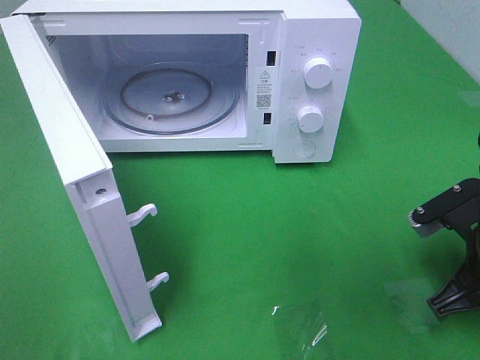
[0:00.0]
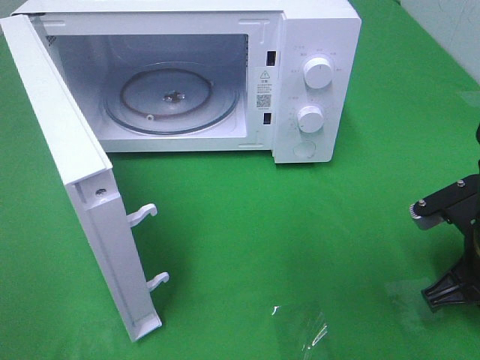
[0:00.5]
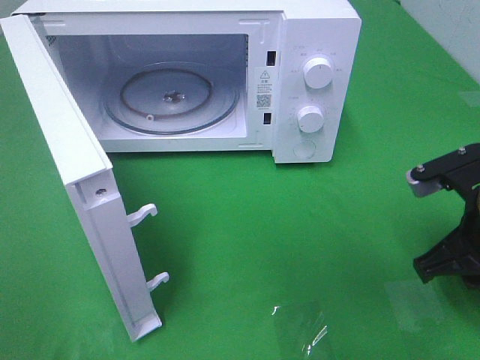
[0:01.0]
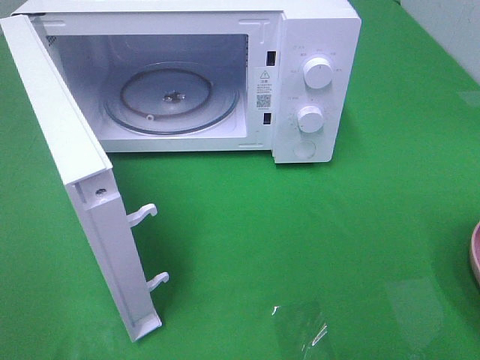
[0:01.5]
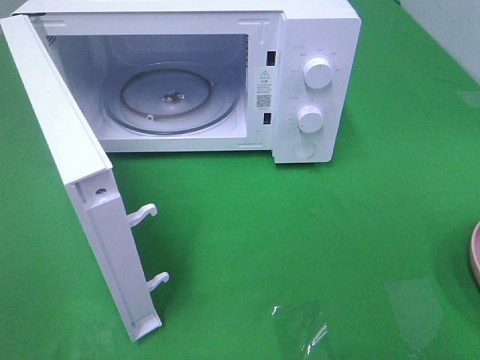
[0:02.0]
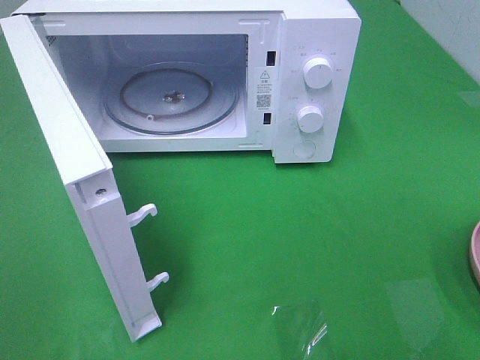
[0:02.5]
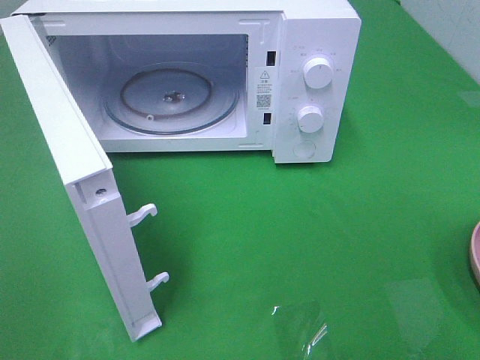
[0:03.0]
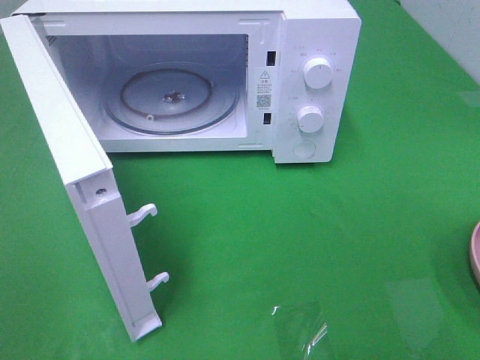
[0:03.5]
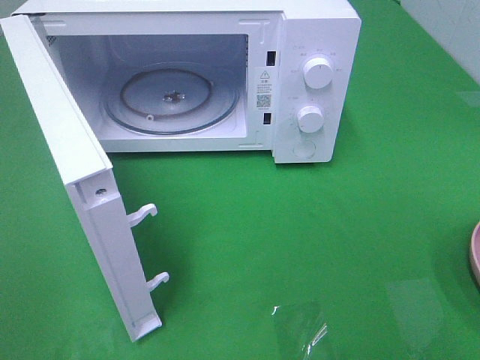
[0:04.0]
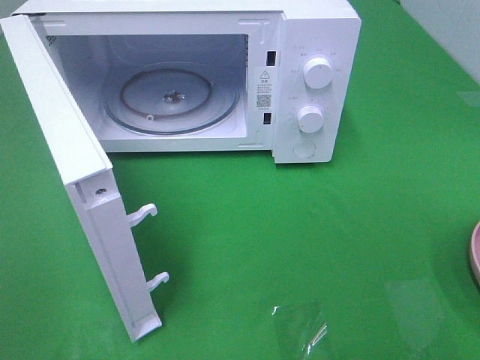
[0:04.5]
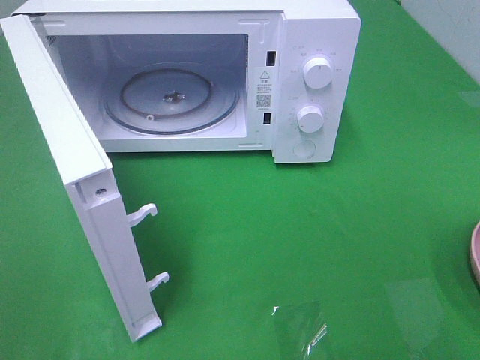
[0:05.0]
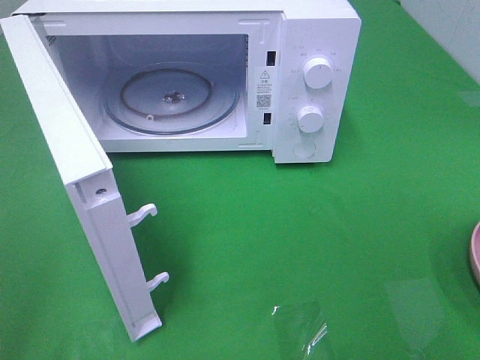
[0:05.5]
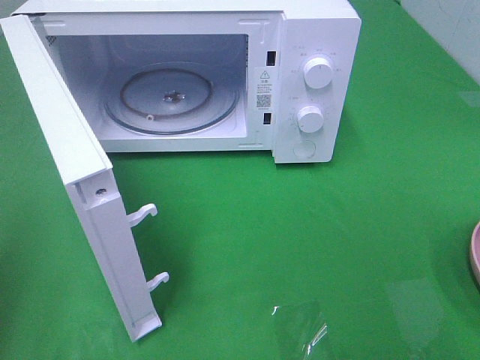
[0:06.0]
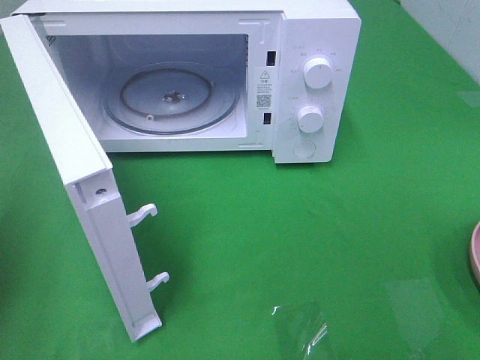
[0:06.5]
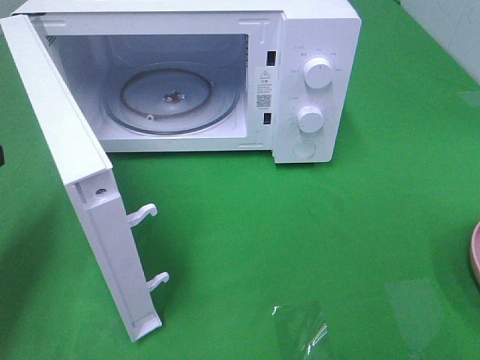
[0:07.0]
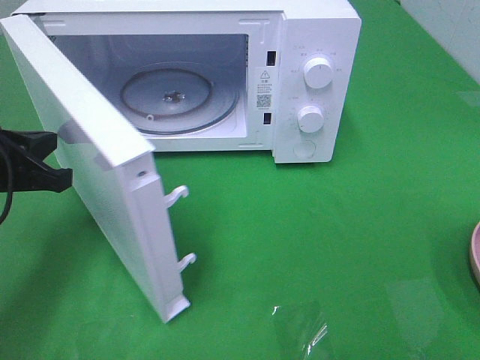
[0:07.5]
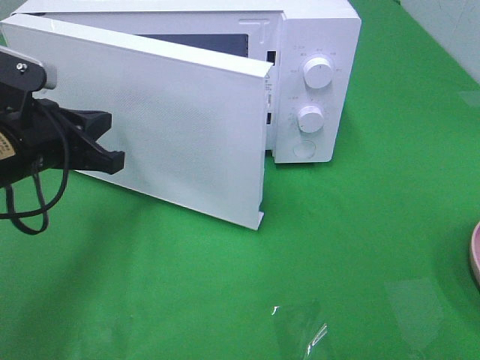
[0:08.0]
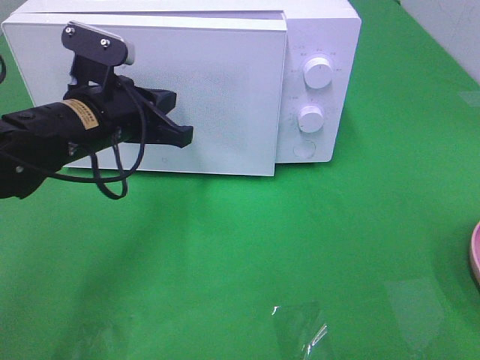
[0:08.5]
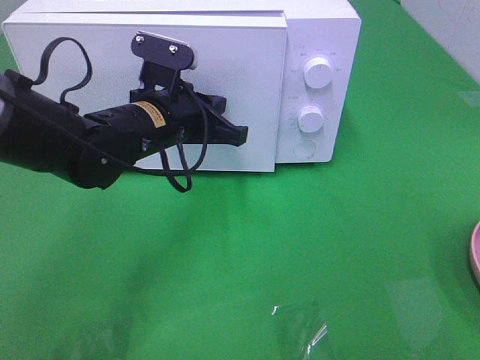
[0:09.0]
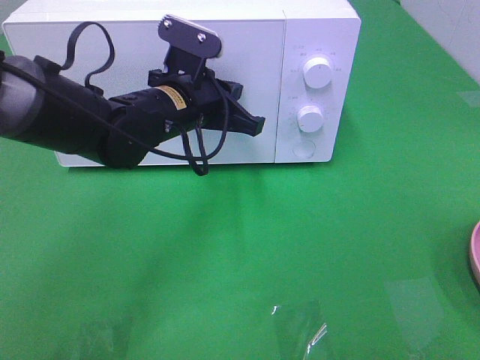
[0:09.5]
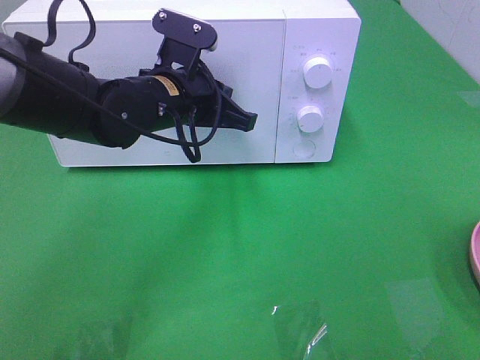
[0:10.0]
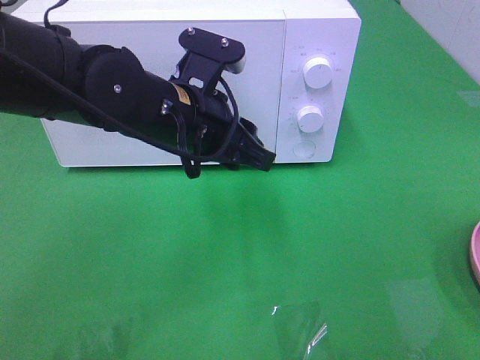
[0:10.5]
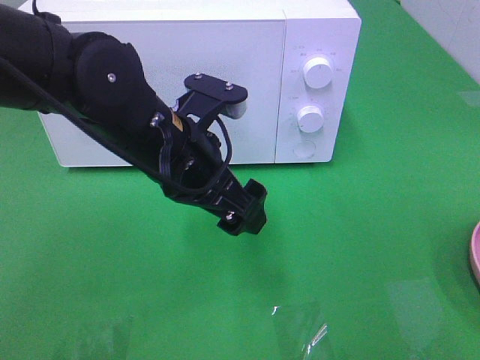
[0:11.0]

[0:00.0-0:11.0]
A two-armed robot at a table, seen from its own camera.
Task of the whole recording: Heat the burger.
Step, 0:00.5 to 0:10.0: Left hand: close the microwave door.
0:00.0 to 0:02.0: The right gripper is displaced upward and backward by some 25 cm, and opens up.
0:05.5 to 0:07.5: The left gripper heads forward and downward, covering approximately 25 cm, and closes its fingers.
0:07.5 to 0:09.0: The left gripper is displaced to the right and forward by approximately 20 cm.
0:09.0 to 0:11.0: The left gripper is displaced backward by some 10 cm, and opens.

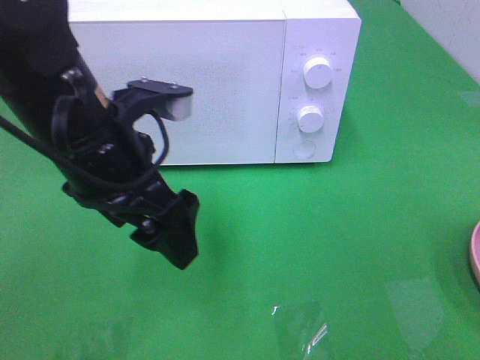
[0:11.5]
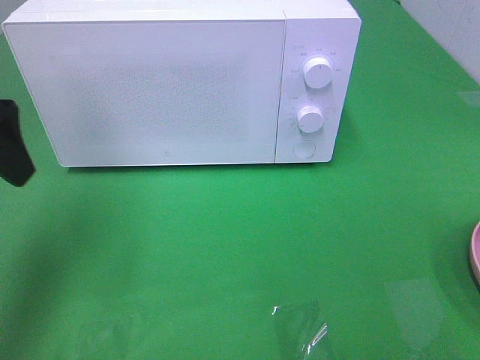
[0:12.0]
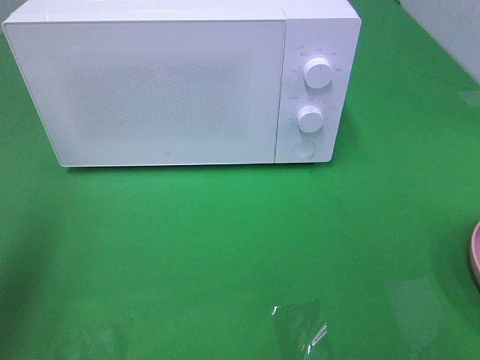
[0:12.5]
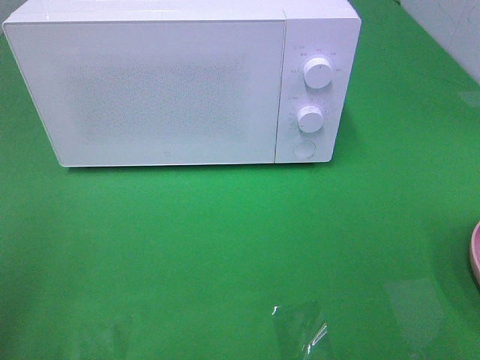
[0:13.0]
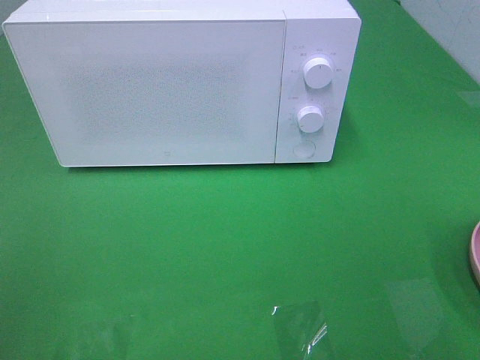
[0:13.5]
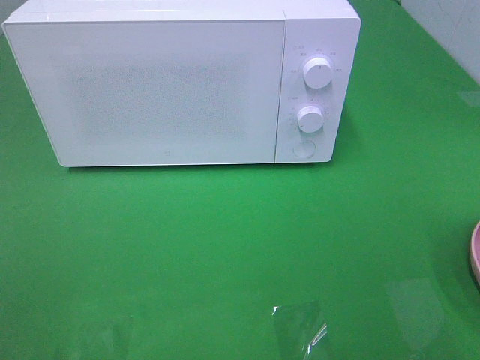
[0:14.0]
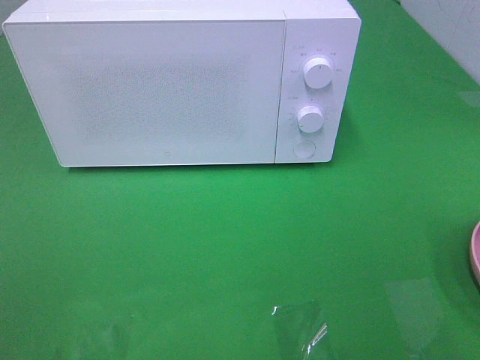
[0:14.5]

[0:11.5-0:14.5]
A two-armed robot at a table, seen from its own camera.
Task of the whole recording: Heat the burger.
0:11.5 to 0:13.0: The left gripper heads to the left and backward, covering some 25 cm.

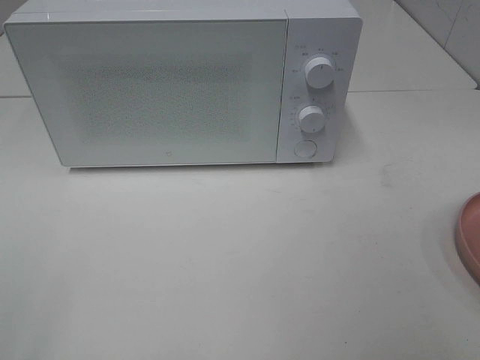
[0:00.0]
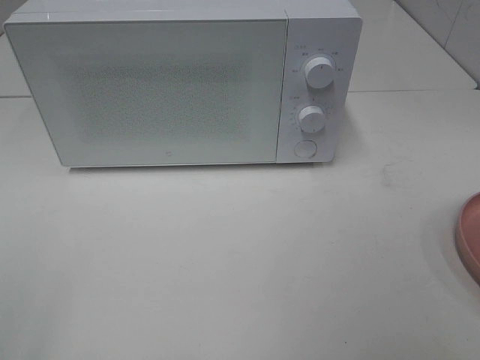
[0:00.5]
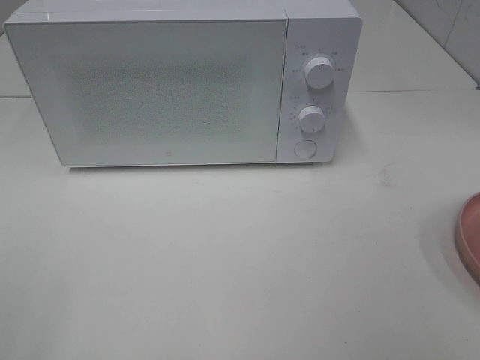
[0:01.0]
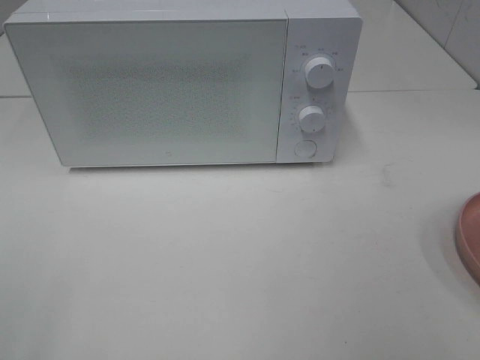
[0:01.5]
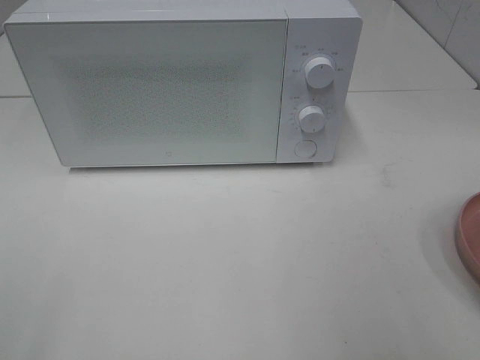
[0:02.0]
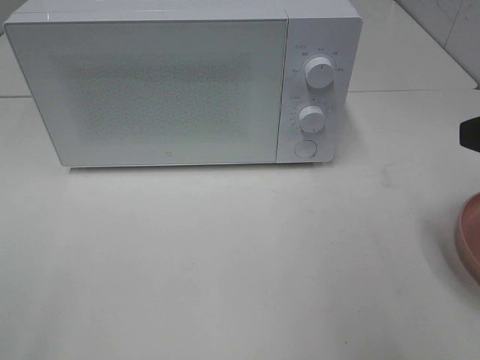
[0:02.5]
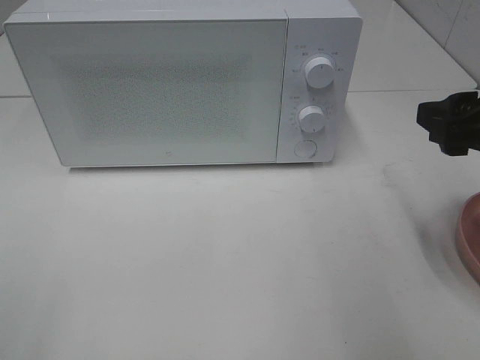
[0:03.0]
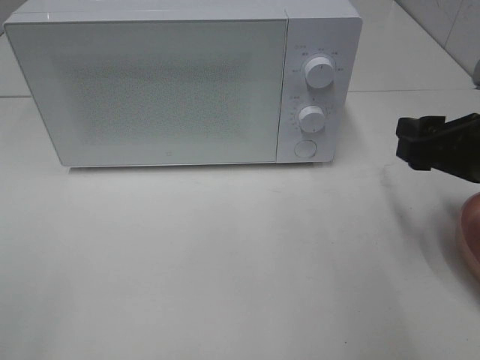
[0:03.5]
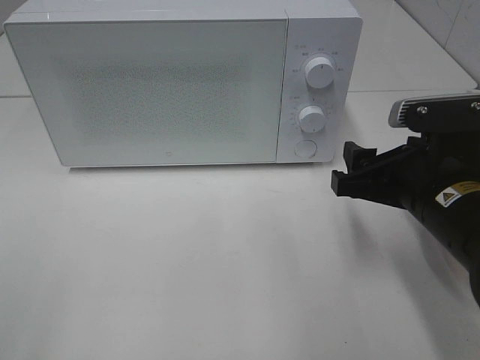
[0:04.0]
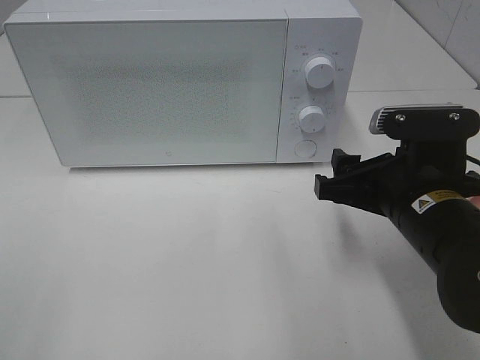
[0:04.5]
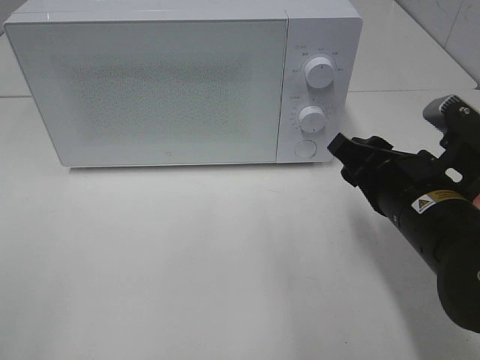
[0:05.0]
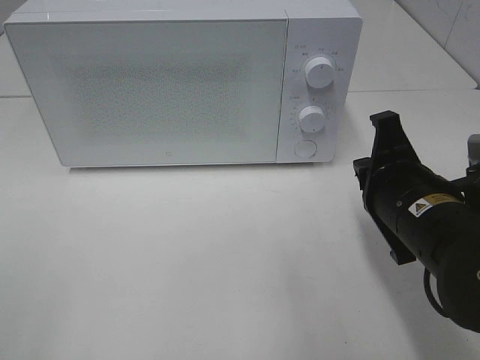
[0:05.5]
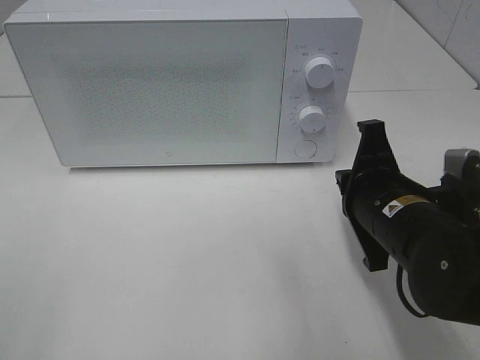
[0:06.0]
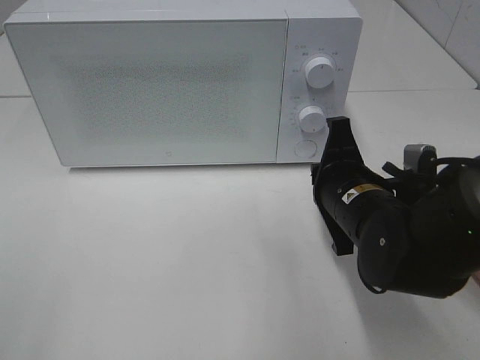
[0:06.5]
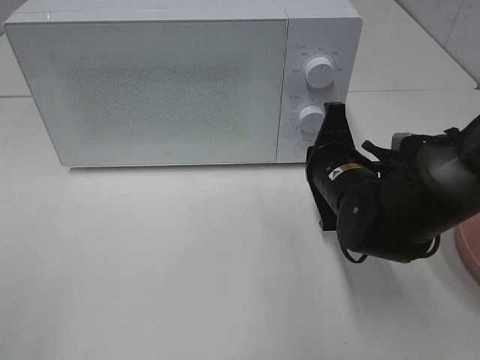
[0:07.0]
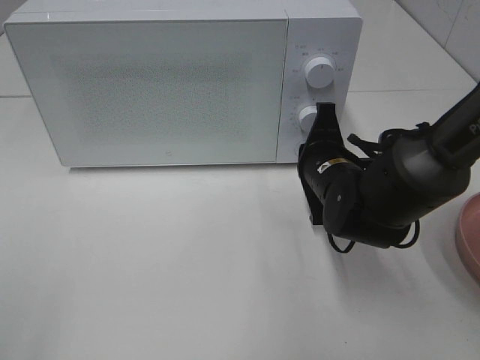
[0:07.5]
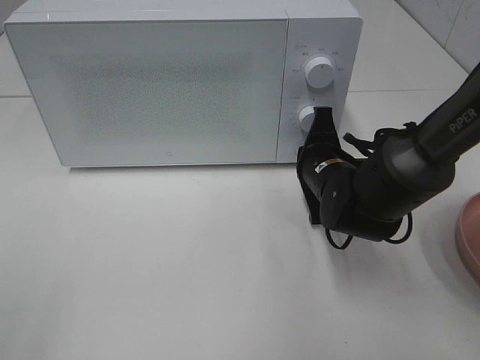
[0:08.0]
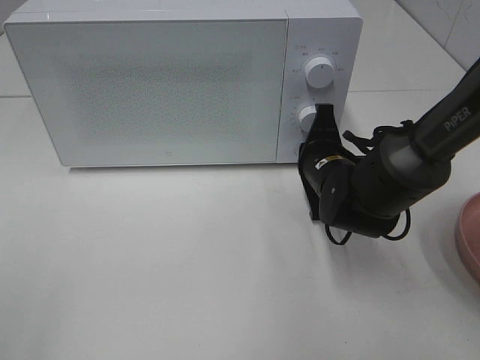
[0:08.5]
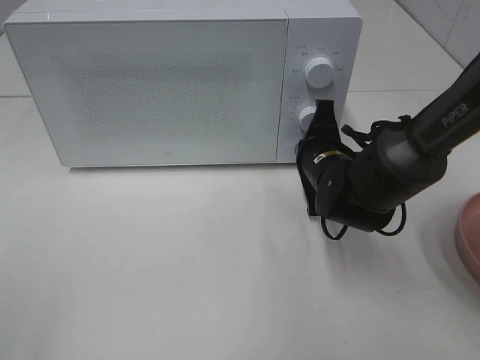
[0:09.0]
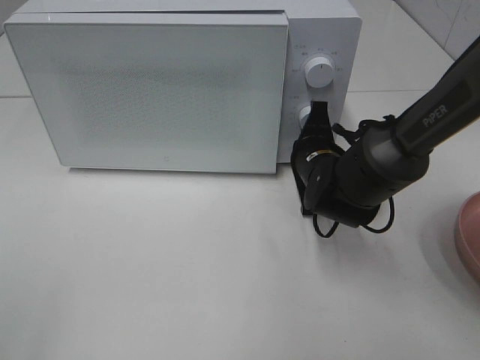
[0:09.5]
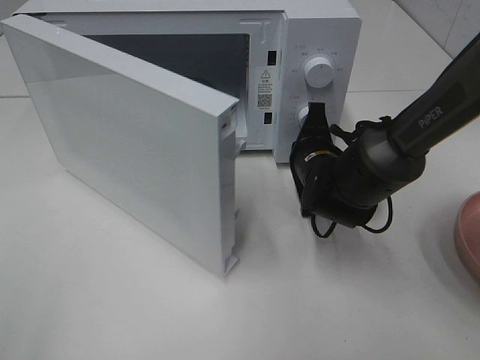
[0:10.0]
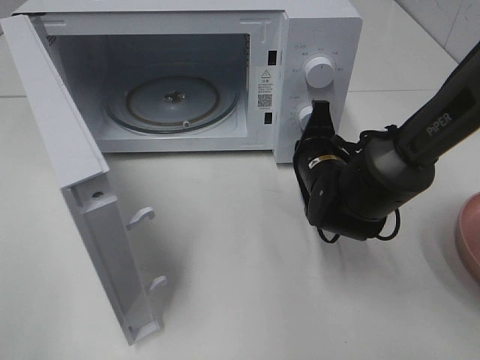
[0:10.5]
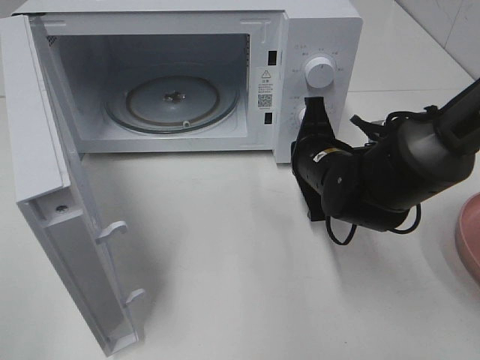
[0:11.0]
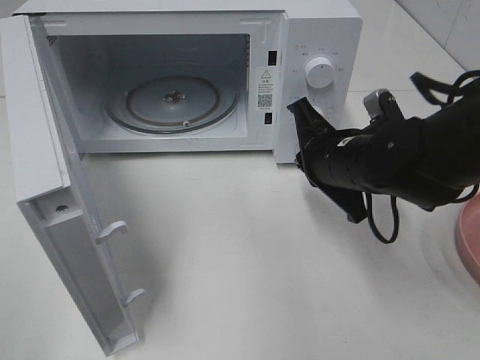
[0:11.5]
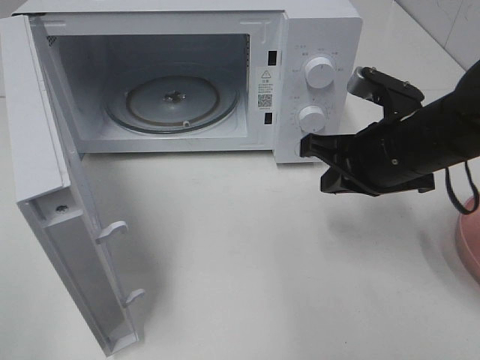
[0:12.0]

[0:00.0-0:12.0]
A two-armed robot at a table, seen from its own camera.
Task of the whole recording: Heat the burger.
Step, 0:00.0 to 0:10.5: Right hand: press the switch.
0:02.0 to 0:04.0: The right gripper goes roughly 20 cm downward, forward and to the left.
0:04.0 to 0:06.0: The right gripper closes its fingers.
0:06.0 to 0:08.0: The right gripper heads forward and downward, covering approximately 10 cm.
0:10.0 to 0:12.0: The right gripper travels upward, backward and to the right by roughly 15 cm.
